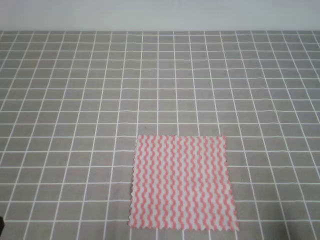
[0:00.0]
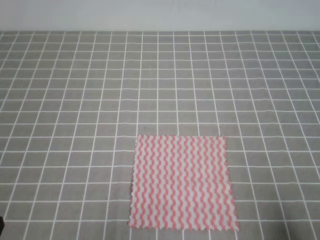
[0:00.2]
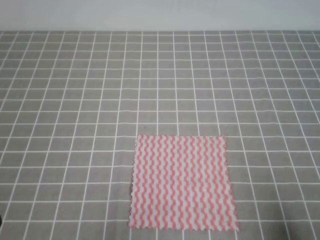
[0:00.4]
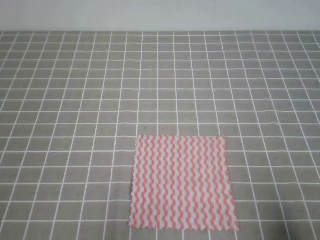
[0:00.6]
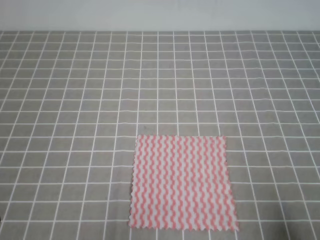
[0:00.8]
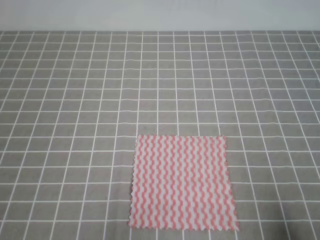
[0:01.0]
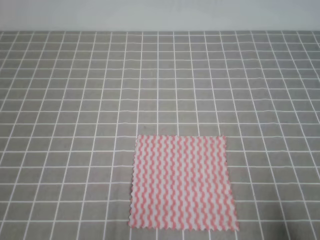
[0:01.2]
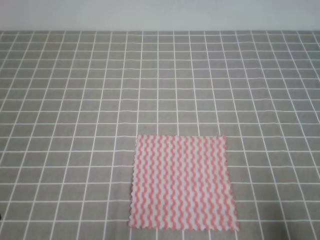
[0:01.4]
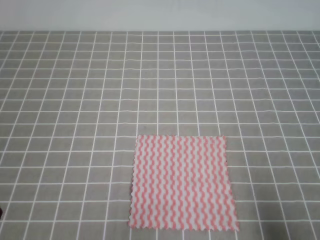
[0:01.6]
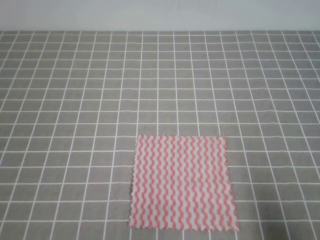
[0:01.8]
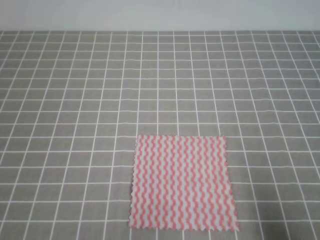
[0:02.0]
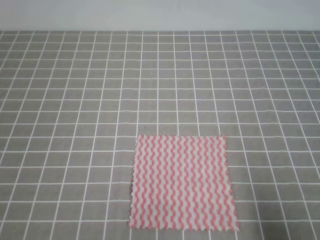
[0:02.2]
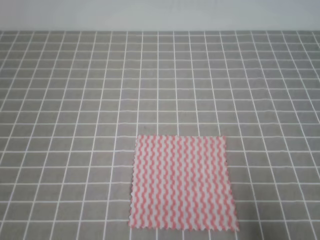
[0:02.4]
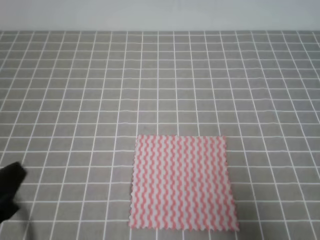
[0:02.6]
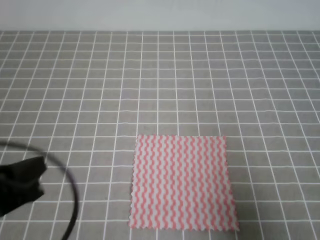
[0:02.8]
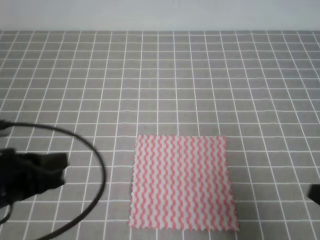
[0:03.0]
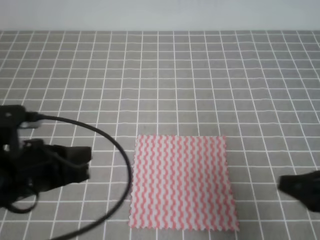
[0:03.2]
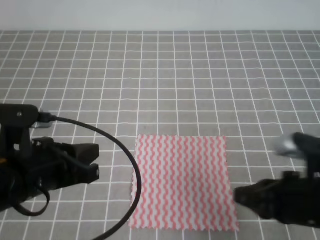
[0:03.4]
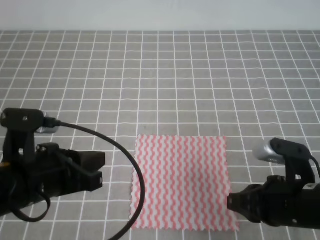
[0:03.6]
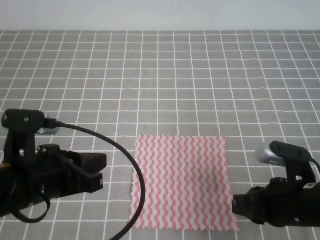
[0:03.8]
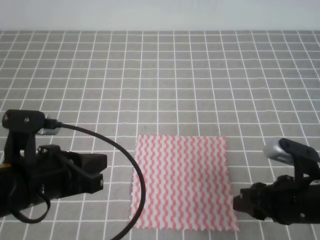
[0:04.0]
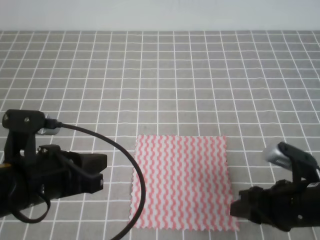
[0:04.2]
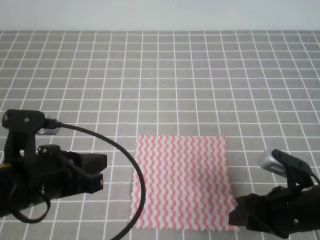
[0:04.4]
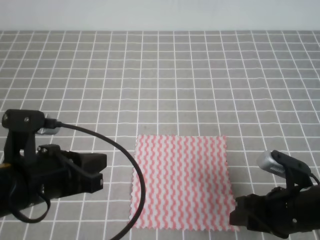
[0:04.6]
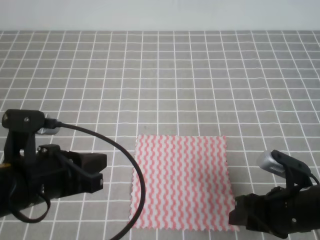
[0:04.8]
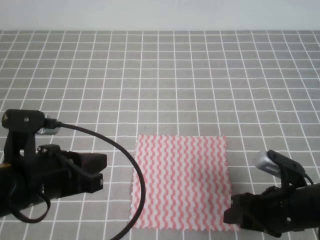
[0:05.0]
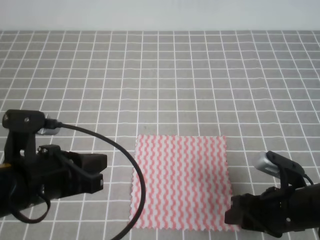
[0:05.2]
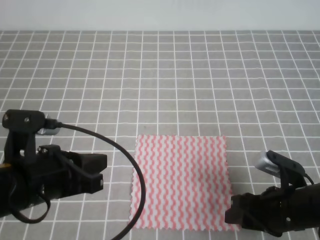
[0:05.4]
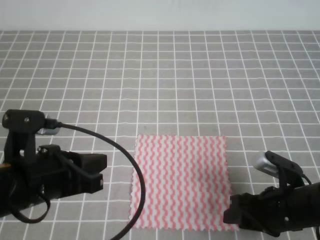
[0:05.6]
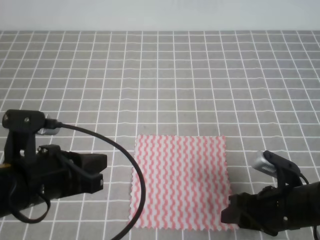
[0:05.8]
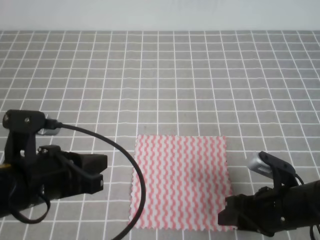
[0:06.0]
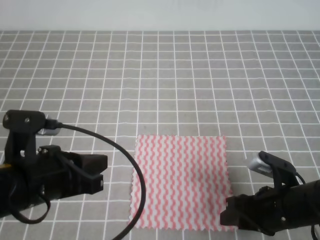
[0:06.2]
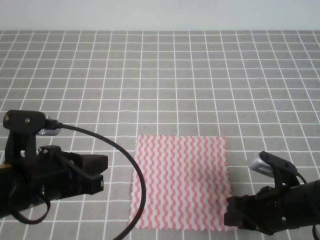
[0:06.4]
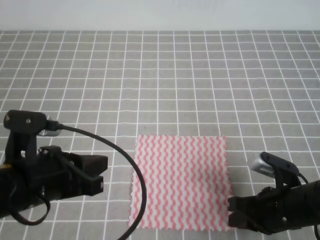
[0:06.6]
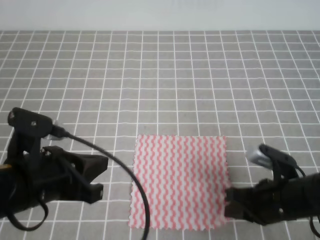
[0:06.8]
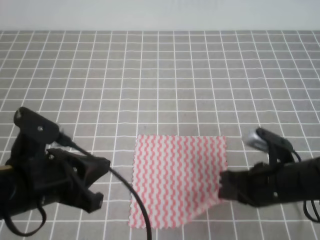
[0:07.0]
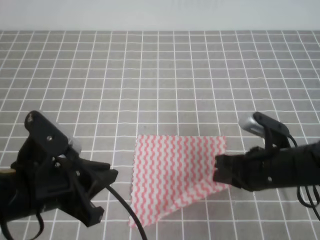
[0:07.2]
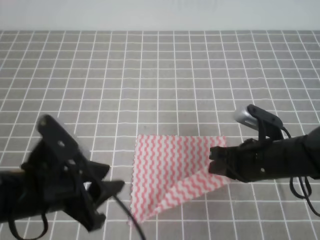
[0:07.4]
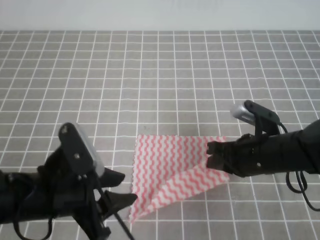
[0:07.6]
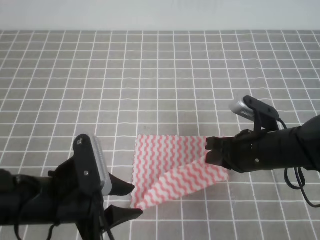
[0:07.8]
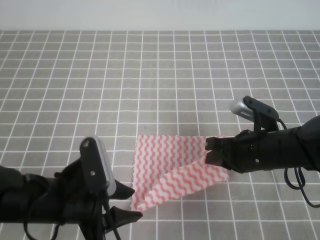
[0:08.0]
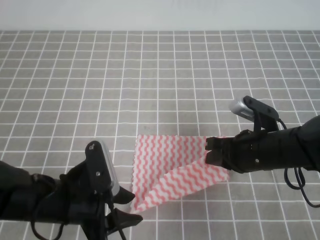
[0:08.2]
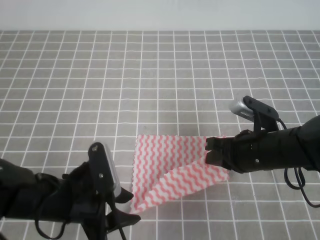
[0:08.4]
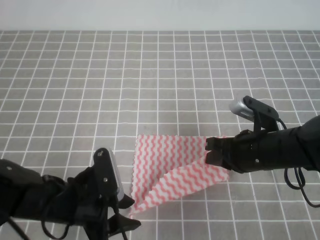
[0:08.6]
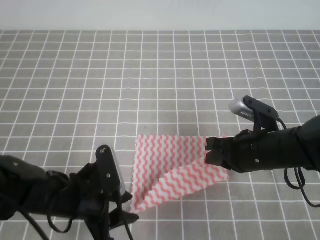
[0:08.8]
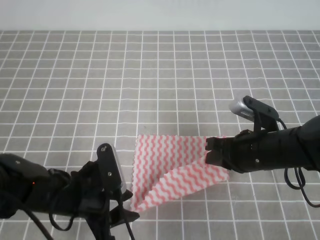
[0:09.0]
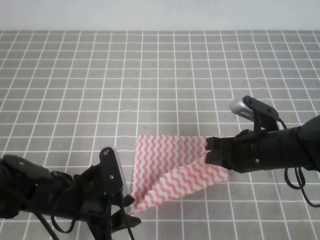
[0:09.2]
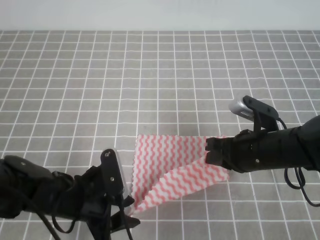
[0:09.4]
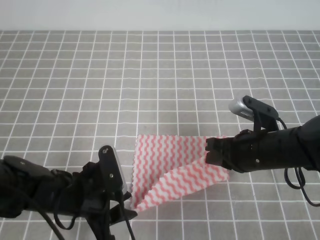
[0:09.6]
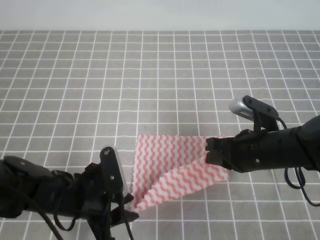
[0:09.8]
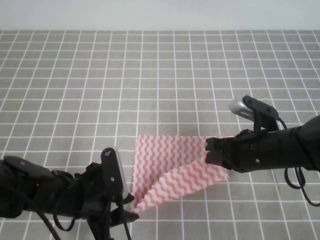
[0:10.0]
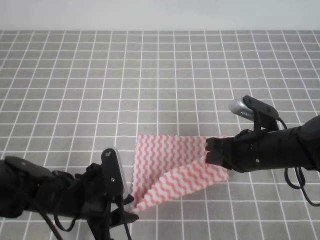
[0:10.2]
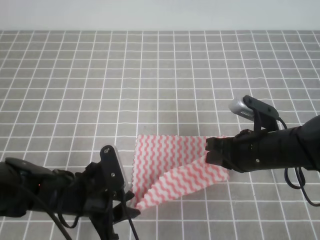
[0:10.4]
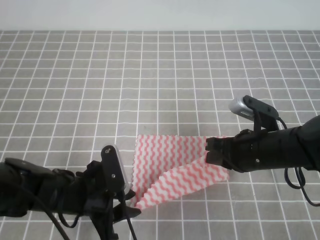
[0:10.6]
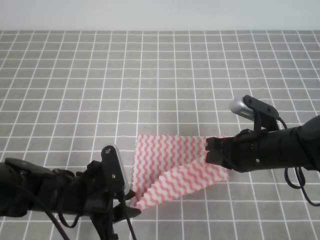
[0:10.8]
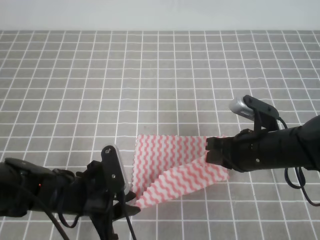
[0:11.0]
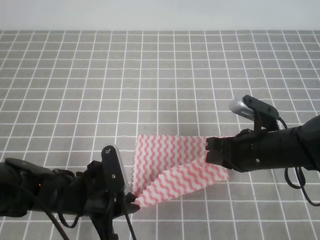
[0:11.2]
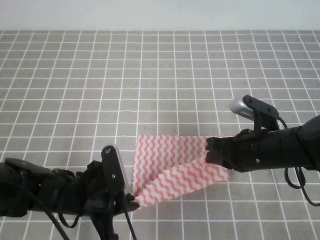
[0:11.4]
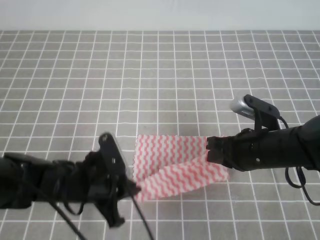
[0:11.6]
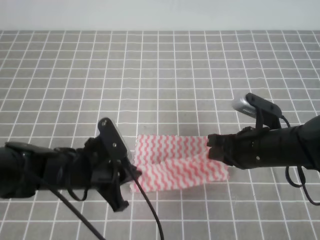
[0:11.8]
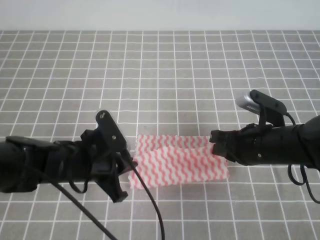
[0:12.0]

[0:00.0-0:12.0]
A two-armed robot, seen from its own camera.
0:01.6 to 0:03.0: The right gripper is displaced forward by approximately 5 cm. The left gripper shifts approximately 15 cm forward and upward.
0:03.0 to 0:04.4: The right gripper goes approximately 10 cm to the left, downward and forward, and opens.
0:04.4 to 0:06.0: The grippers move only a little.
0:06.0 to 0:07.6: The right gripper goes approximately 5 cm forward, and closes its fingers. Meanwhile the left gripper opens up.
0:07.6 to 0:09.0: The left gripper is displaced downward by approximately 5 cm.
0:09.0 to 0:10.4: There are only small adjustments of the grippers.
0:10.4 to 0:12.0: The left gripper closes.

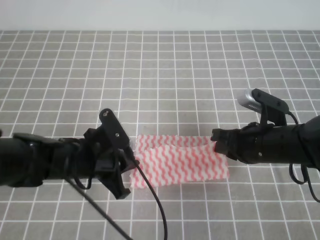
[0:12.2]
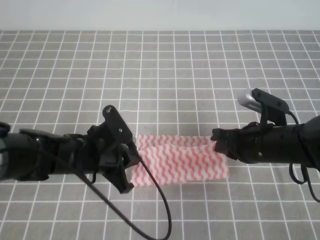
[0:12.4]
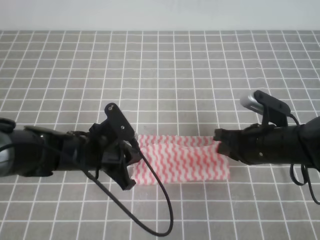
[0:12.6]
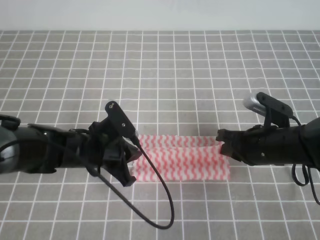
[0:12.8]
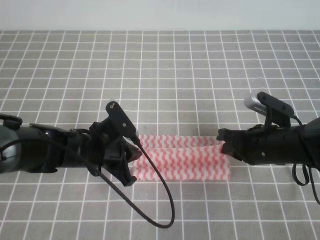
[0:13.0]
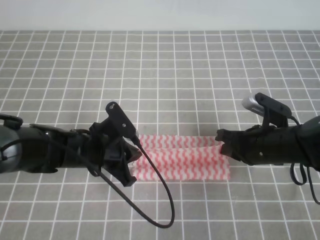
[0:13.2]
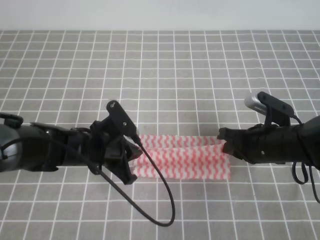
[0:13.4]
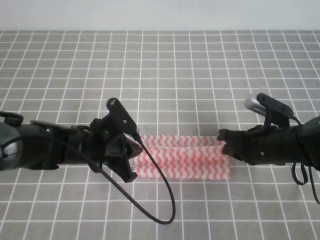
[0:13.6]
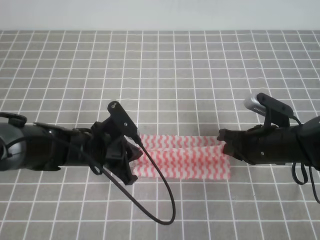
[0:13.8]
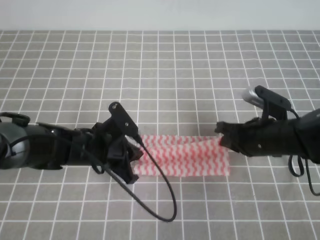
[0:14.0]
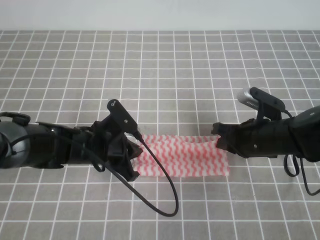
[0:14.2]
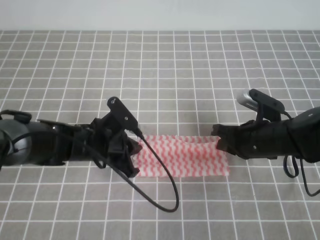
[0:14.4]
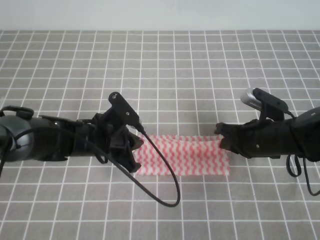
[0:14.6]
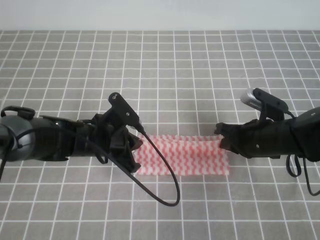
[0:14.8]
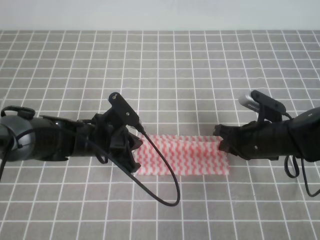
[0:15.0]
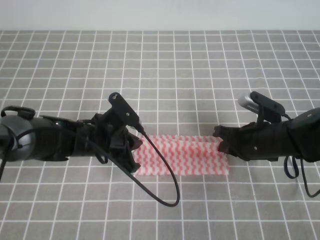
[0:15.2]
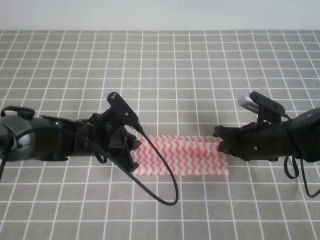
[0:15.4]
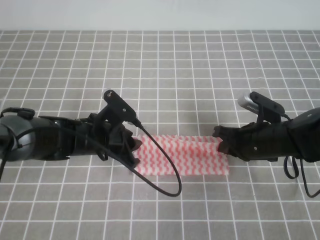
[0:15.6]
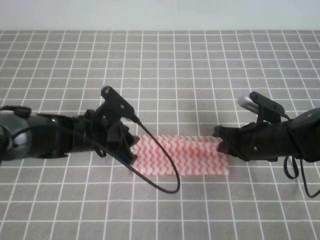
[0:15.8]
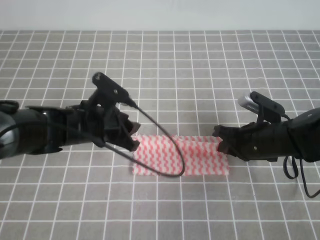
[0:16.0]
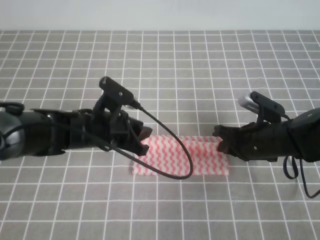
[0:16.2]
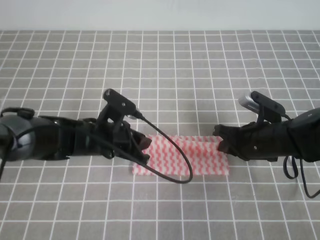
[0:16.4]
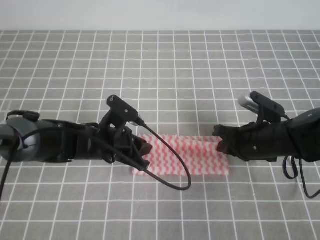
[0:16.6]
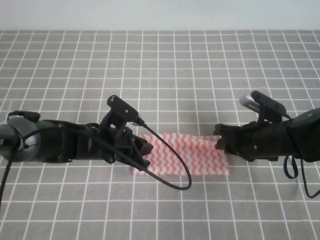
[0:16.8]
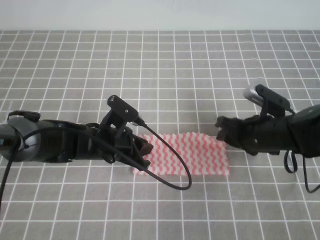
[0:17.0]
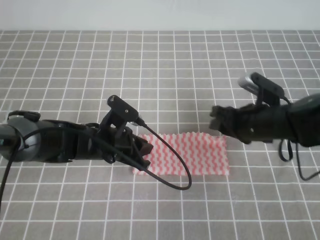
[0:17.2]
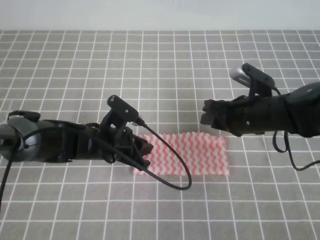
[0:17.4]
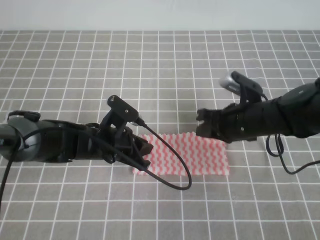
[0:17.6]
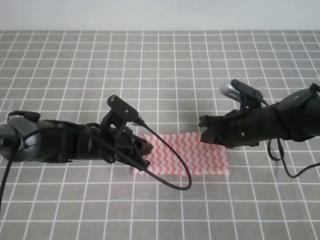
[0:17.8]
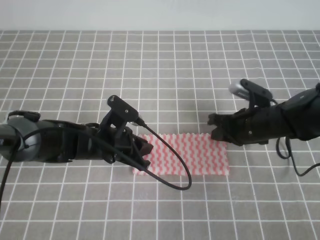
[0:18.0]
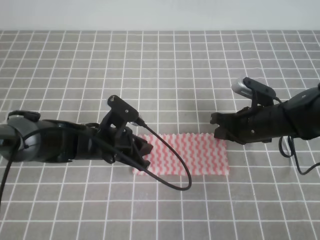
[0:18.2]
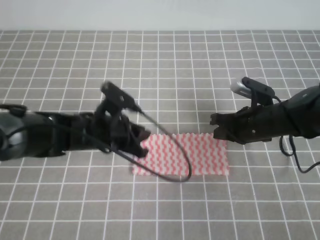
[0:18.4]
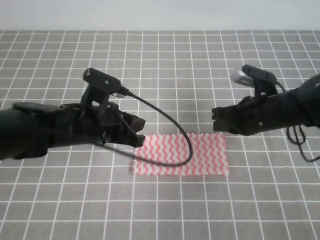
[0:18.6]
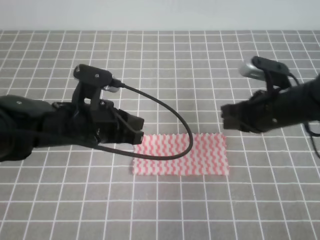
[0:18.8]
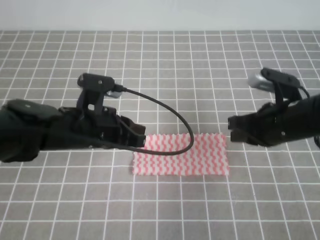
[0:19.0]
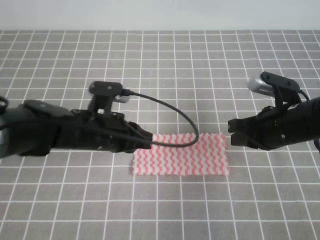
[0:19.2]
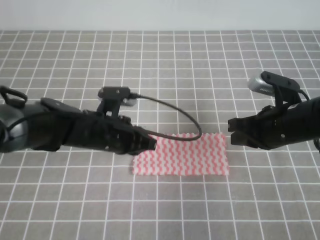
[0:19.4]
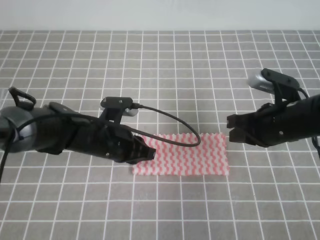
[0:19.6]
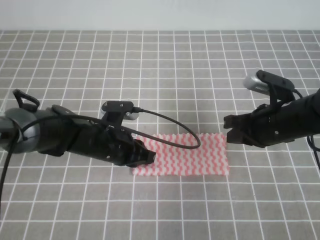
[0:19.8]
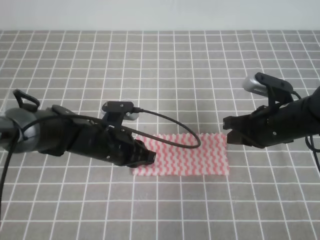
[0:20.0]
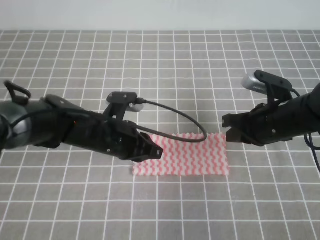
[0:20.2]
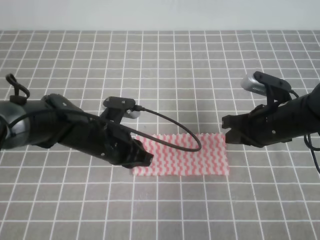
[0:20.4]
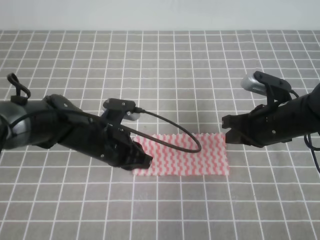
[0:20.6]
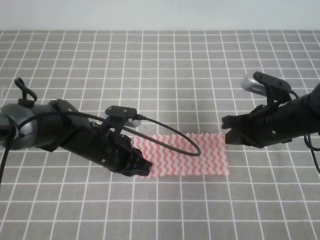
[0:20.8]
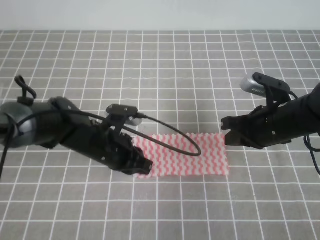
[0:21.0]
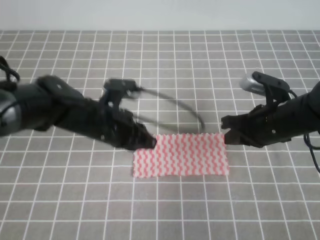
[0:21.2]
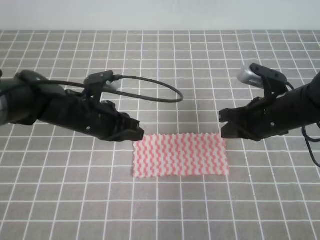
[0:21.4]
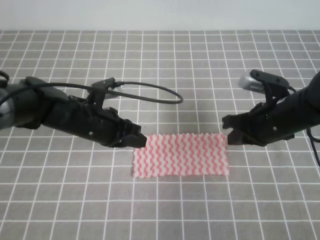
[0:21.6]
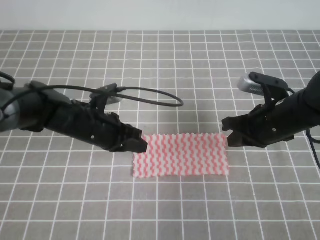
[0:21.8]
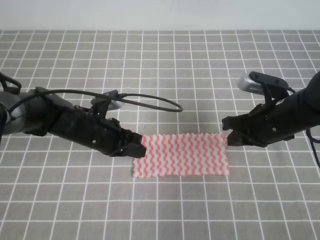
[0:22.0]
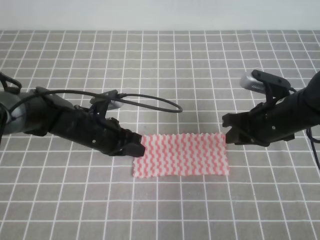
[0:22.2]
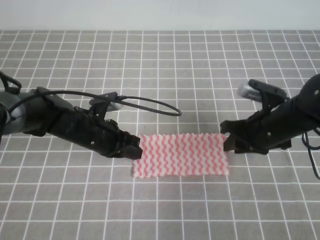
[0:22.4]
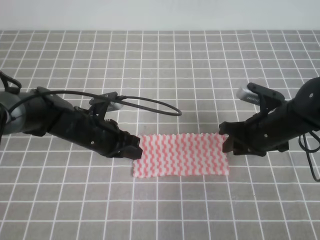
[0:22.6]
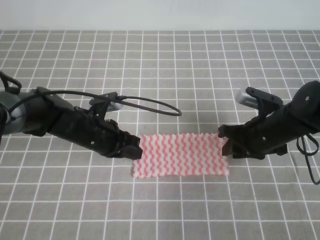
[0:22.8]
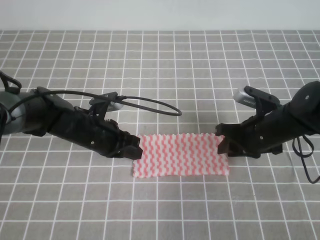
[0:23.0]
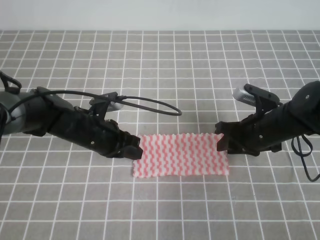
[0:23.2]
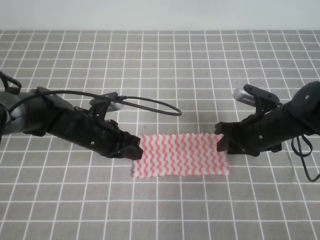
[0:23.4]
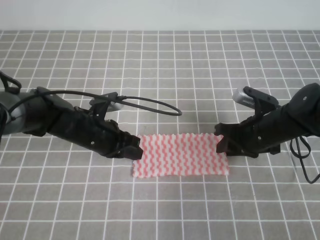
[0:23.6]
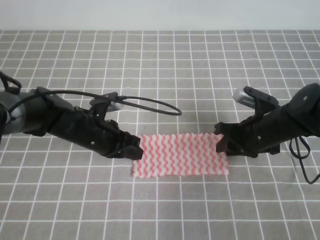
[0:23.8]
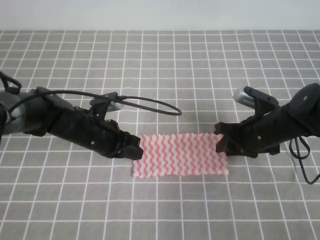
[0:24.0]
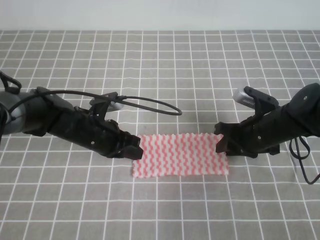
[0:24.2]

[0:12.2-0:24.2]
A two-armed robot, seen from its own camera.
0:12.2 to 0:13.8: The grippers stay close to where they were, moving slightly.
0:13.8 to 0:15.2: There are only small adjustments of the grippers.
0:15.2 to 0:16.6: The left gripper opens, then closes once more.
0:16.6 to 0:18.2: The right gripper opens and closes again.
0:18.2 to 0:19.8: The left gripper goes upward and returns, about 10 cm each way; the right gripper heads upward, covering some 5 cm.
0:19.8 to 0:21.2: The grippers move only a little.
0:21.2 to 0:22.6: The right gripper opens its fingers.
0:22.6 to 0:24.2: The grippers move only a little.
